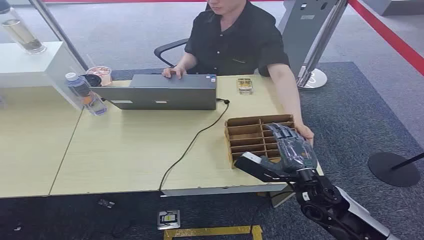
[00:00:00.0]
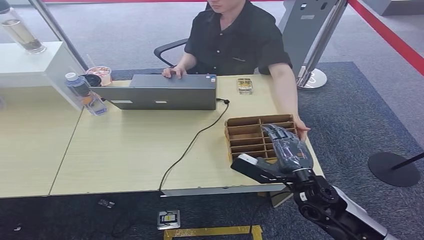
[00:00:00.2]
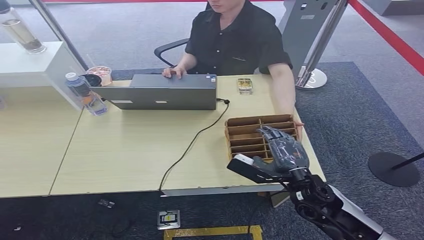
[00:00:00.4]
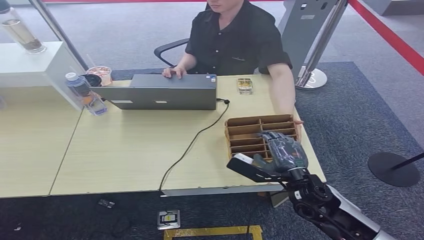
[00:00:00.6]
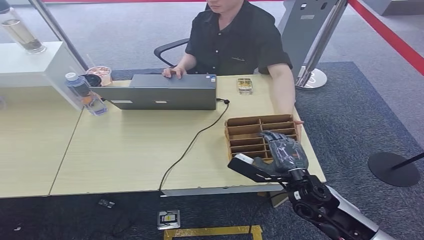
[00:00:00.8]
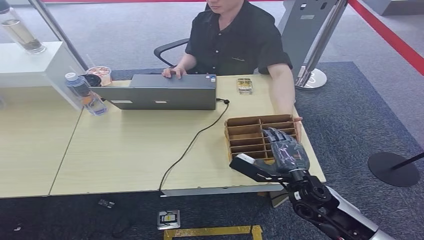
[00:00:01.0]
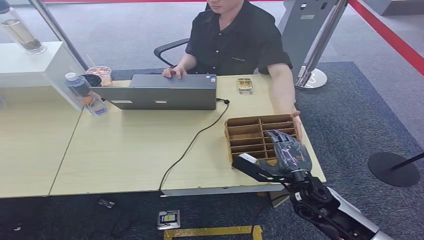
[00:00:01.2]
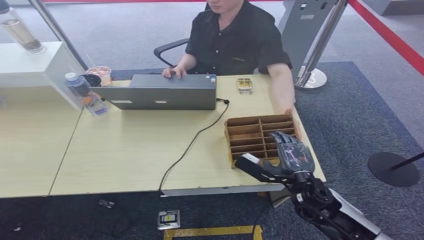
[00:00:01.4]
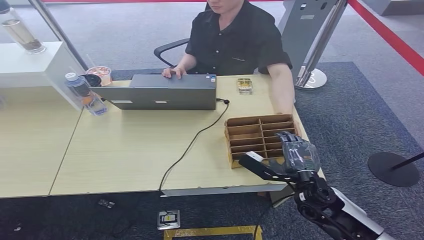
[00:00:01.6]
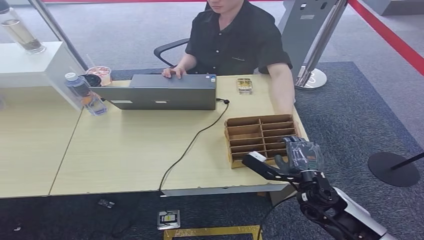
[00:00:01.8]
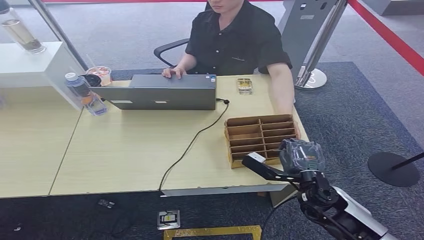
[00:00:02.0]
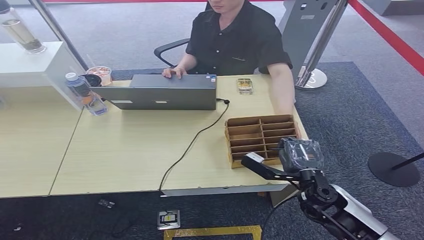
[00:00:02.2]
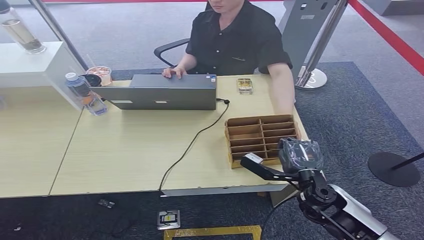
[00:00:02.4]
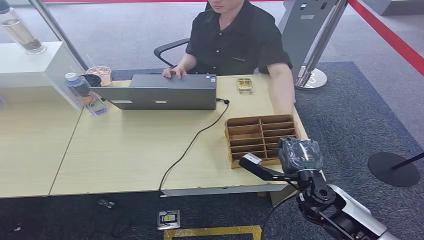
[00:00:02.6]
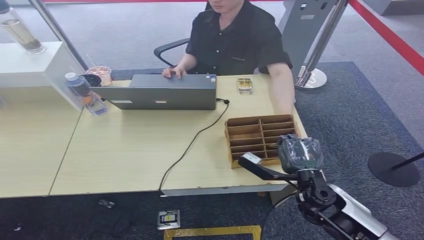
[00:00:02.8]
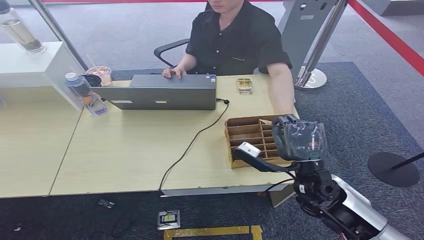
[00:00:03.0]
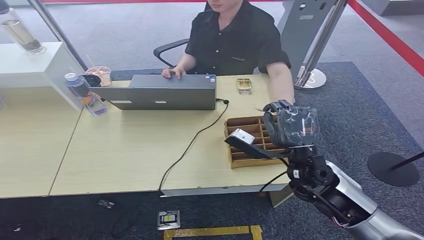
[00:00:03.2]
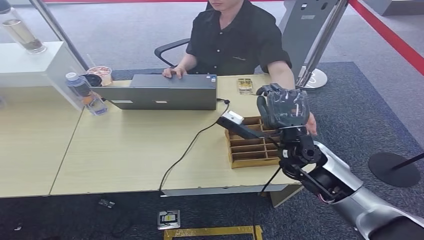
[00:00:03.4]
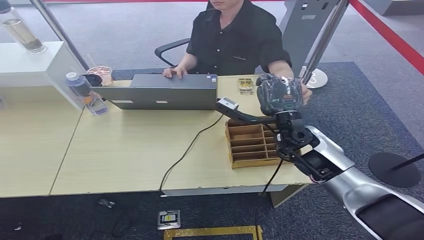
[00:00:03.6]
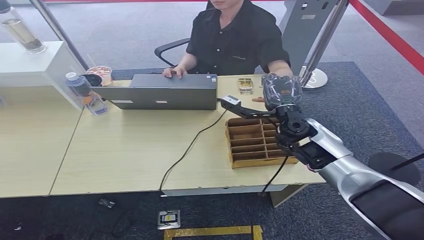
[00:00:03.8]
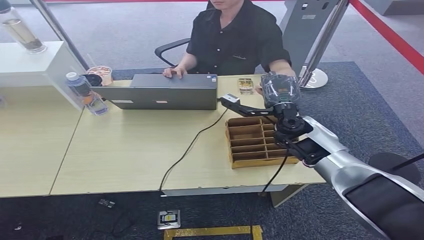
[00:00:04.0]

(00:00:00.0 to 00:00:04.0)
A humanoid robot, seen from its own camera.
Step, 00:00:00.0 - 00:00:02.6: Pick up the room card from the card holder.
Step, 00:00:03.0 - 00:00:04.0: Hand the room card to the target.
00:00:01.4 - 00:00:02.6: There are only small adjustments of the hands.
00:00:02.6 - 00:00:04.0: The right hand travels forward and upward by about 20 cm.
